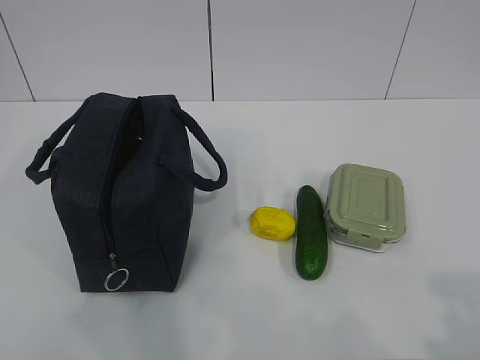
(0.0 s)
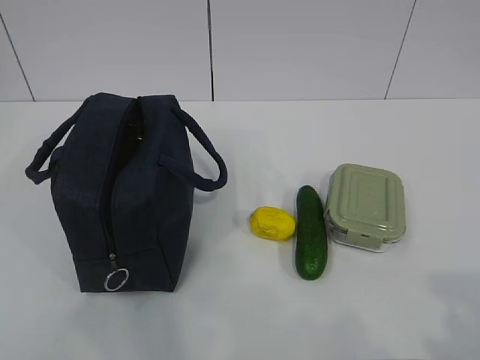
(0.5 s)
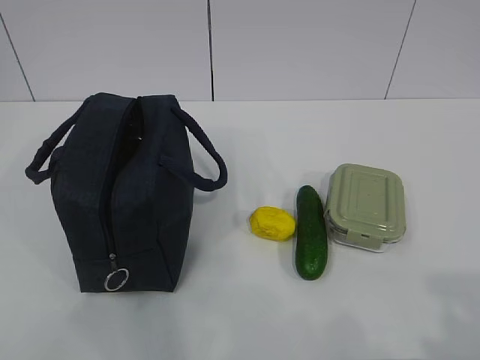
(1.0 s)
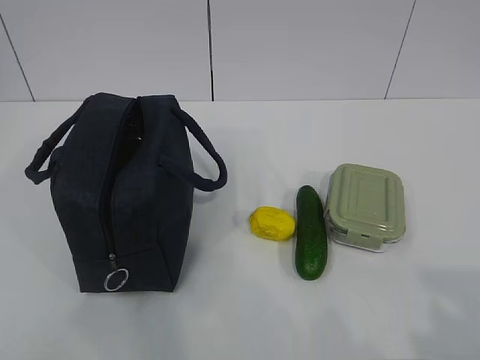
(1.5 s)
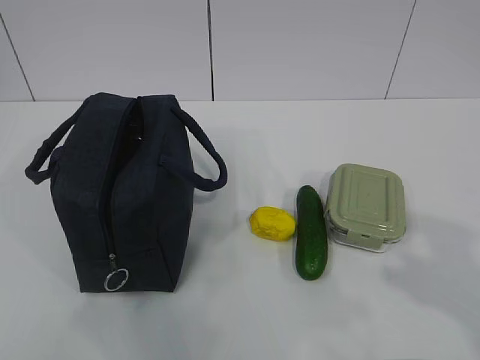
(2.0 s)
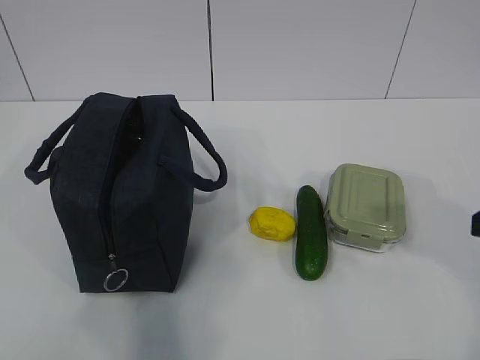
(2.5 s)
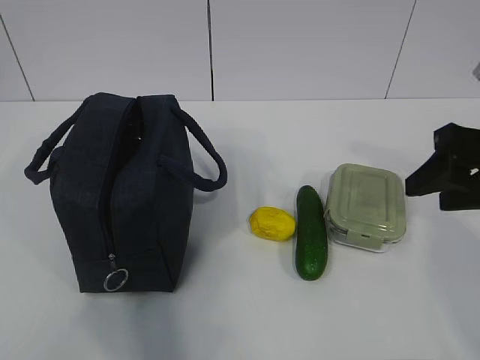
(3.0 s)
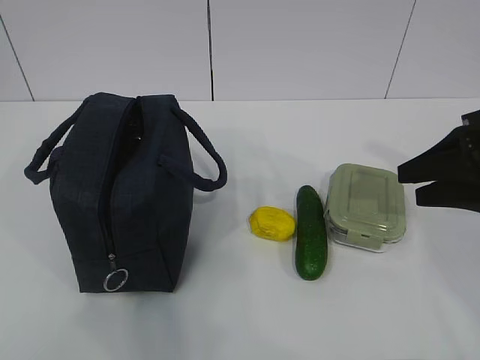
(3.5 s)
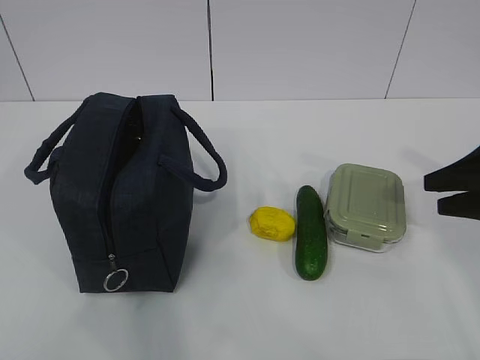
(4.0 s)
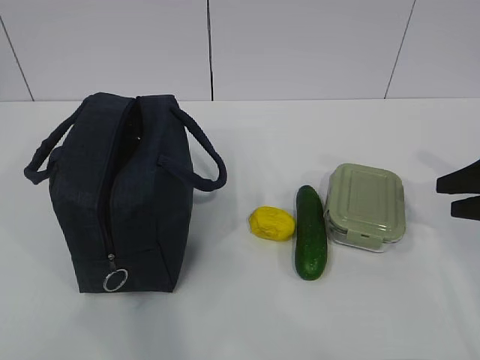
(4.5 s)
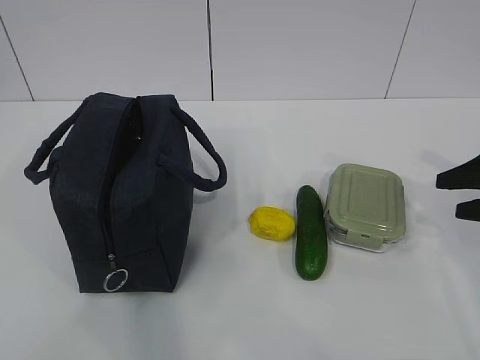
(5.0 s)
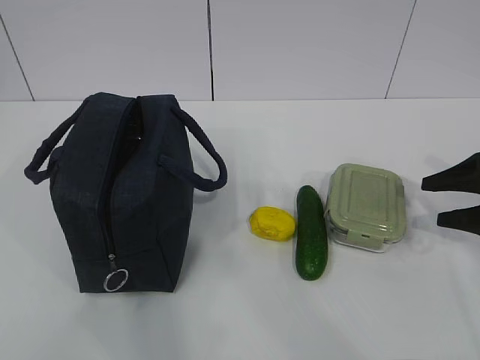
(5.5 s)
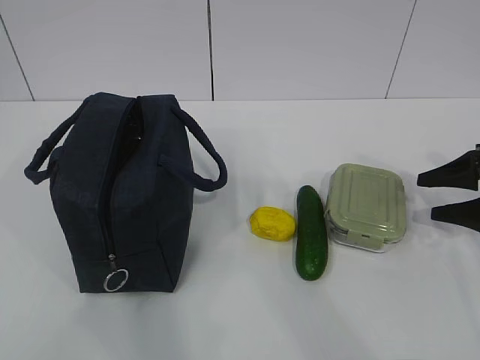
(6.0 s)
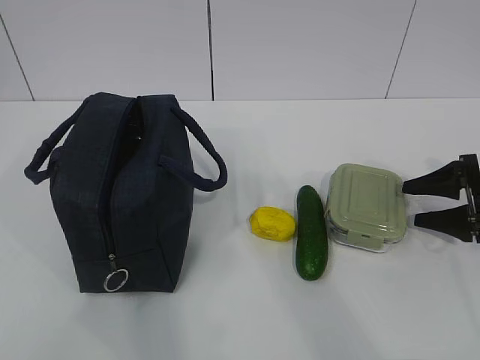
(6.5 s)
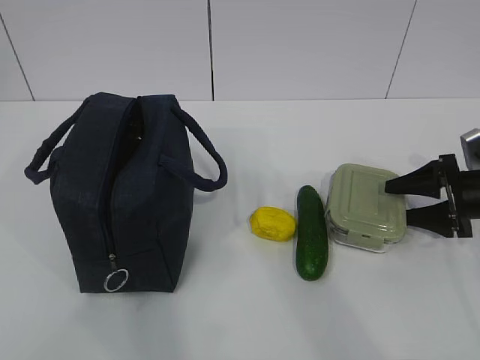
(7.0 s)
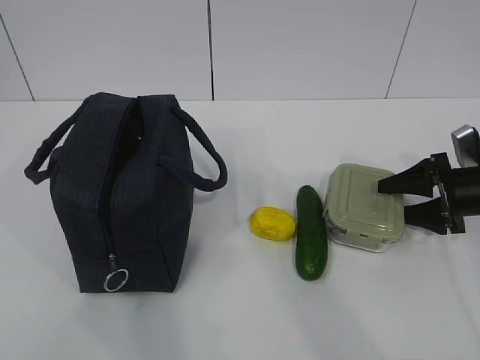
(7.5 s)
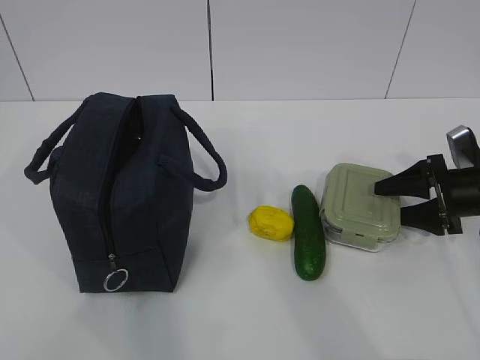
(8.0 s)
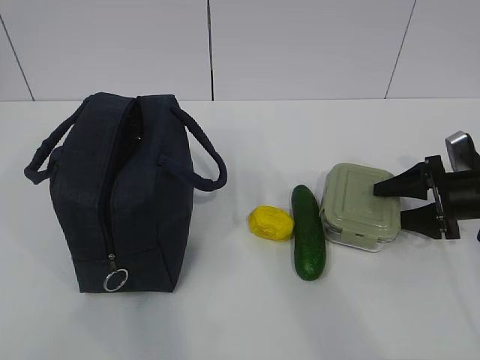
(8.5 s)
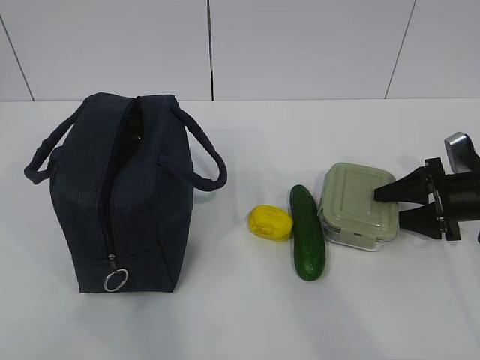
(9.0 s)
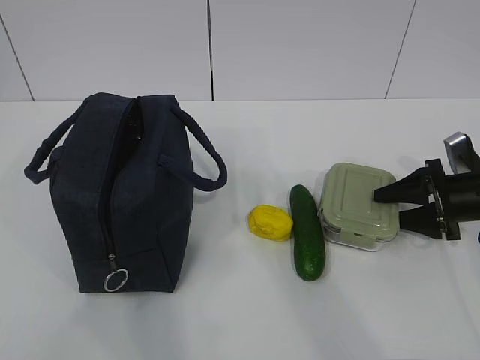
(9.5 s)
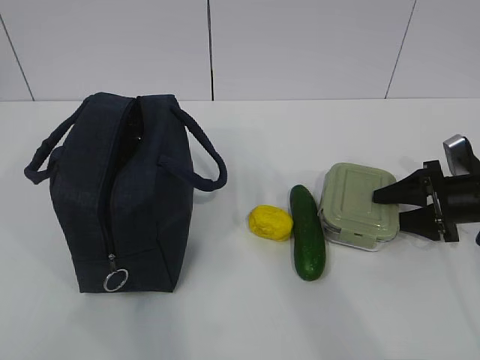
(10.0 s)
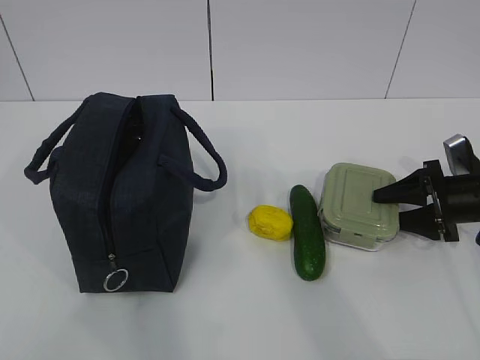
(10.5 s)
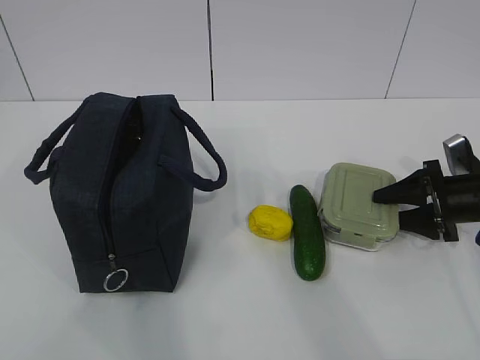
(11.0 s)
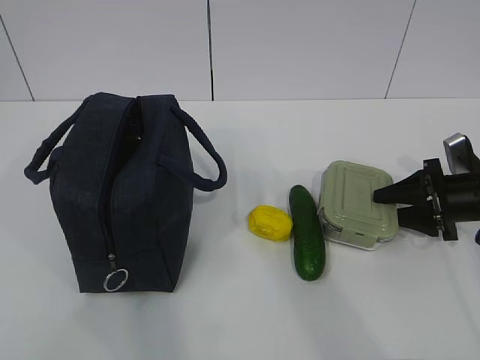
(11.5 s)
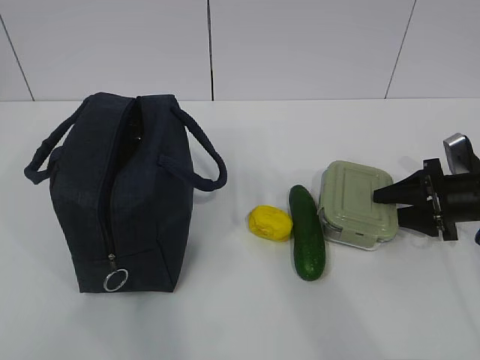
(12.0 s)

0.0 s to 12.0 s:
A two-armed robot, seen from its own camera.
Step, 0.0 to 11.5 s: Grab the lunch box with your right hand.
2.0 to 4.0 s: The right gripper shifts some 25 cm forward.
4.0 to 6.0 s: The right gripper goes about 5 cm downward.
6.0 to 8.0 s: The right gripper ends up approximately 5 cm from where it was.
8.0 to 12.0 s: Neither gripper changes place.

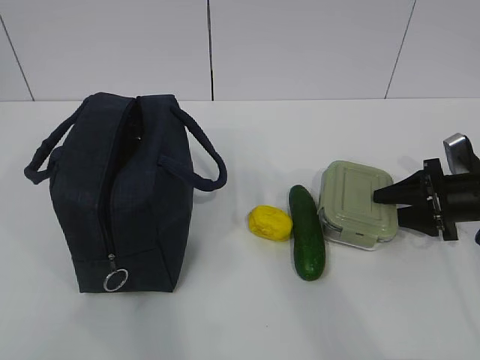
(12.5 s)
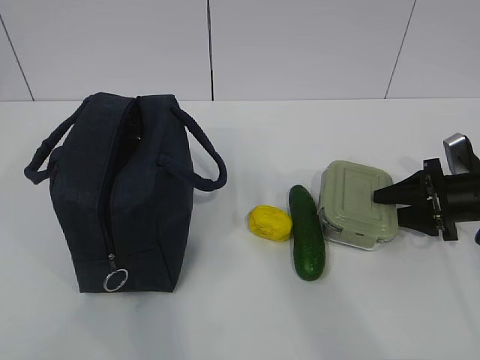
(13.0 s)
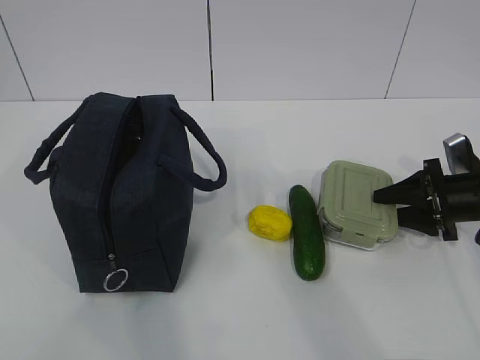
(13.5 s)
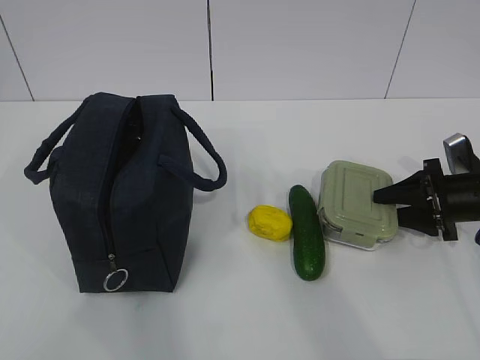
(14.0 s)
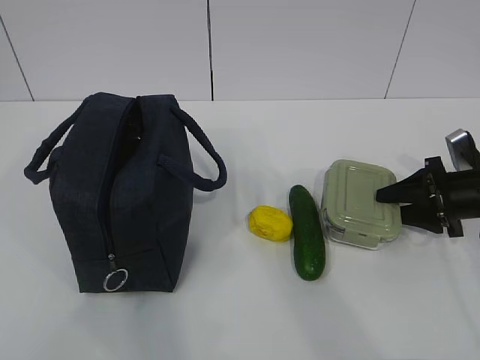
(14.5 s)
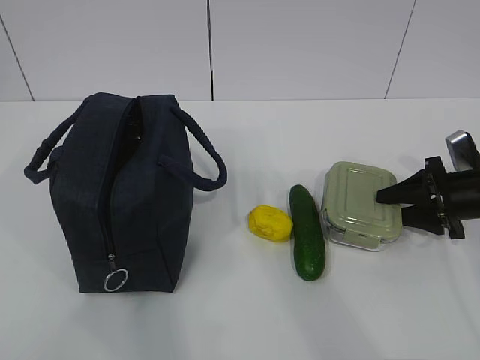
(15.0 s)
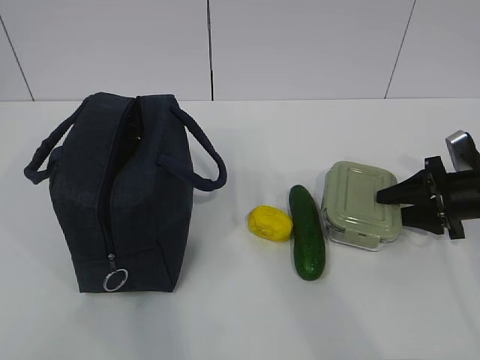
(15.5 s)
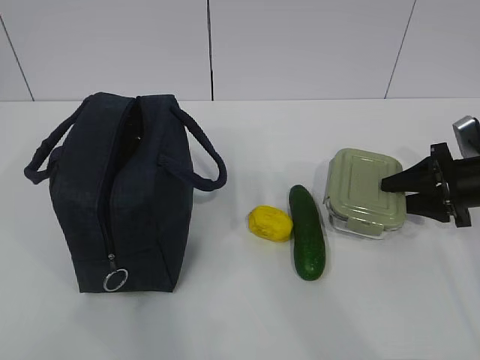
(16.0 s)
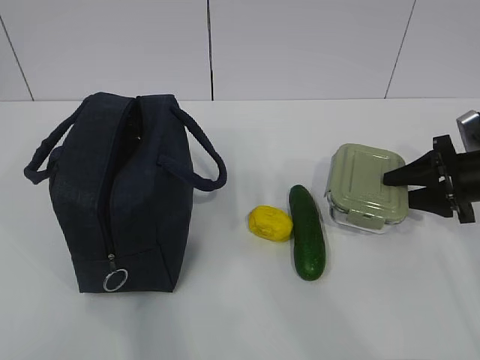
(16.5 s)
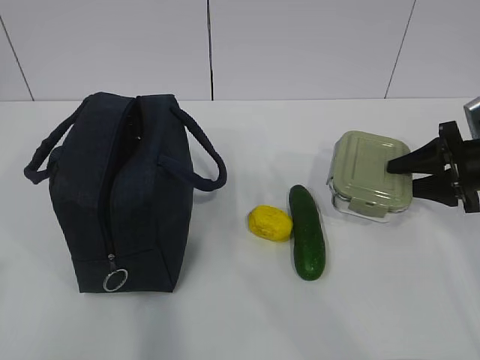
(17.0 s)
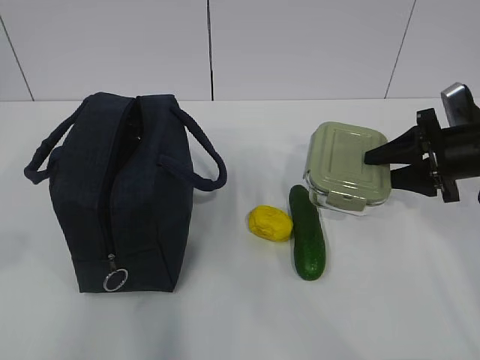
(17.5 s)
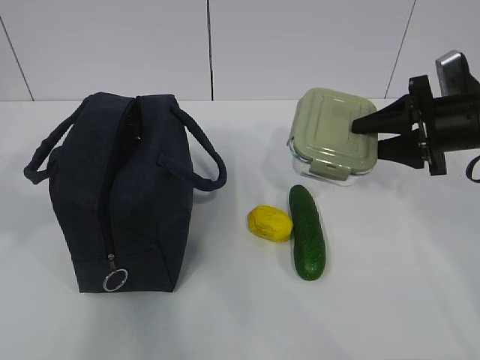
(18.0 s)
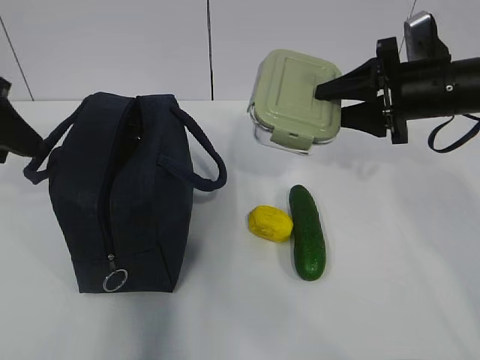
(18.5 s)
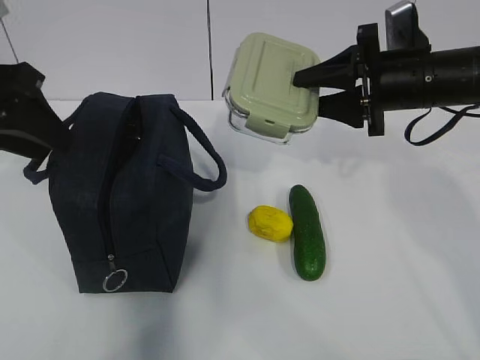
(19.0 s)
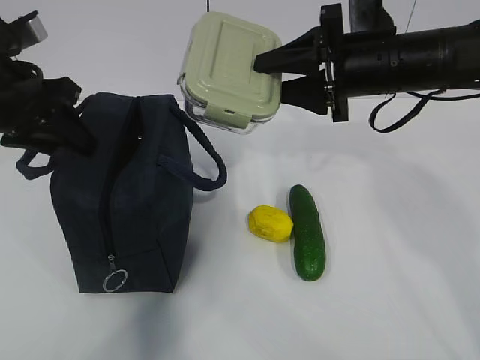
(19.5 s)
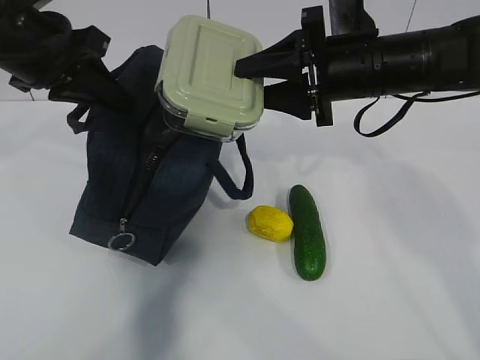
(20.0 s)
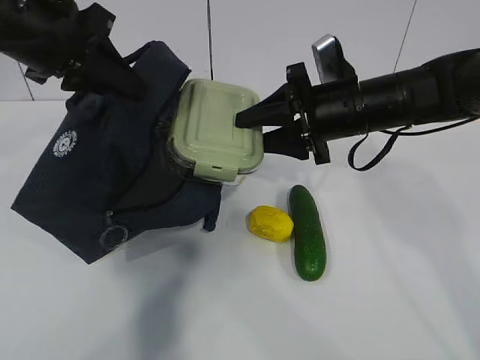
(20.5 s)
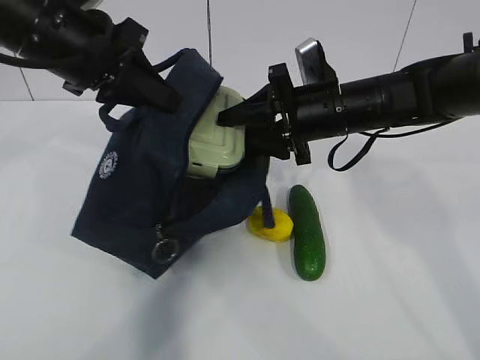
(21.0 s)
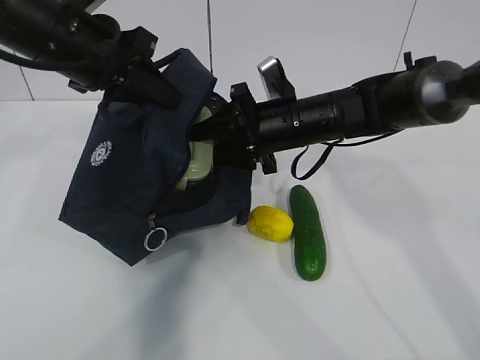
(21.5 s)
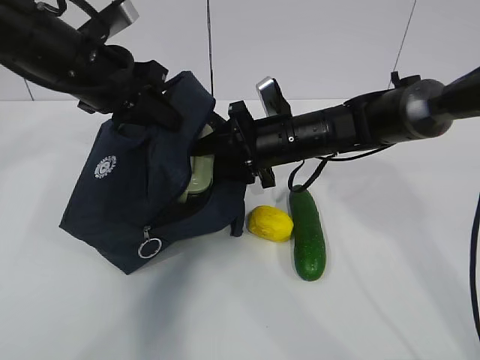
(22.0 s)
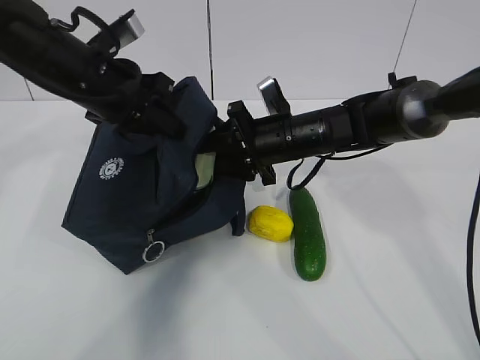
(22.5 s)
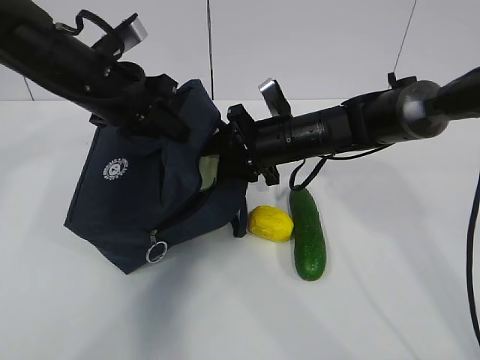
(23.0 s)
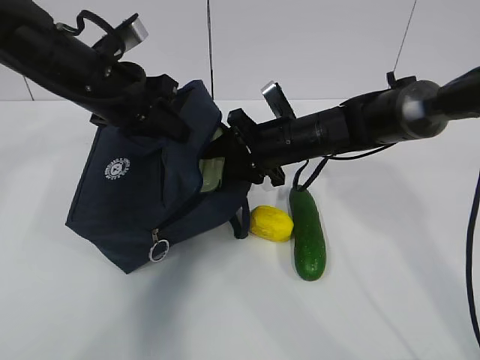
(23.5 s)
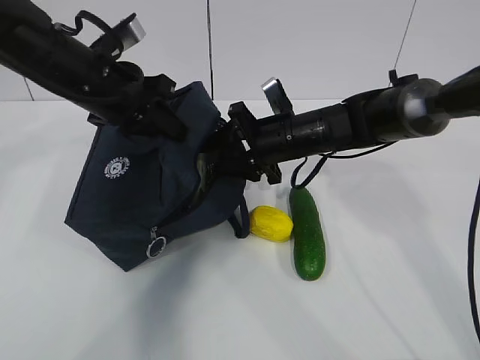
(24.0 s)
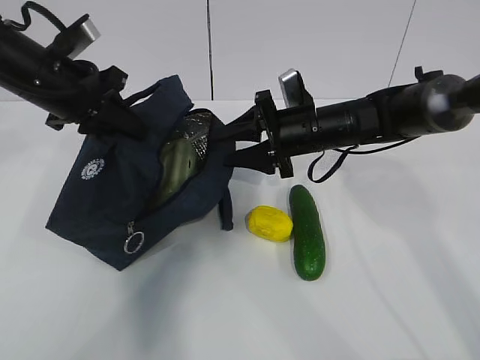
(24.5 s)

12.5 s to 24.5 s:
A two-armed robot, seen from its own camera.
Step, 12.5 to 16.5 s: Grab the lunch bag with your left hand.
Step, 17.0 to 19.5 s: Place it into the bag with your right hand.
Step, 20.0 to 23.5 s: Grab the cucumber with your right hand.
12.5 to 14.5 s: Both grippers stay put.
14.5 to 16.5 s: The grippers make only small movements.
16.5 to 18.5 s: The right gripper moves upward and to the left, approximately 15 cm. The left gripper moves forward, some 25 cm.
18.5 to 20.5 s: The left gripper goes approximately 10 cm forward and to the right, and closes its fingers, while the right gripper travels to the left by some 10 cm.
20.5 to 22.5 s: The right gripper moves downward and to the left, roughly 10 cm, while the left gripper moves downward, some 5 cm.
22.5 to 24.5 s: The left gripper heads to the left, covering about 5 cm.

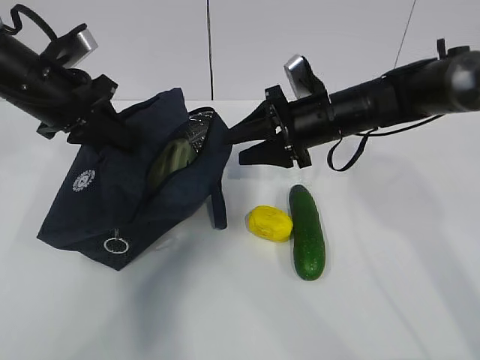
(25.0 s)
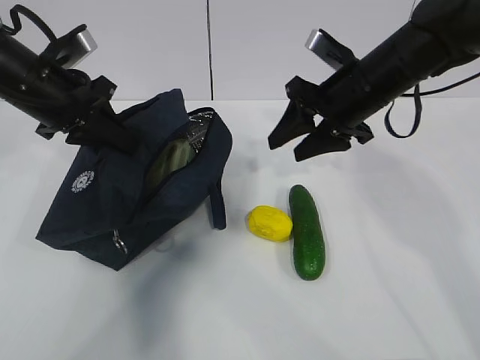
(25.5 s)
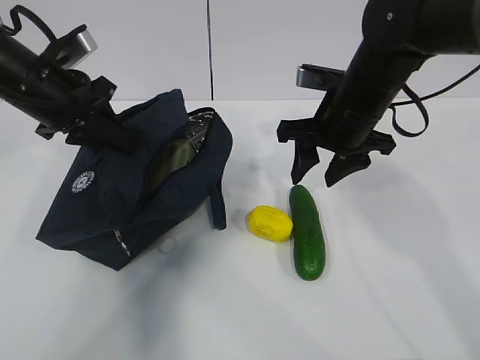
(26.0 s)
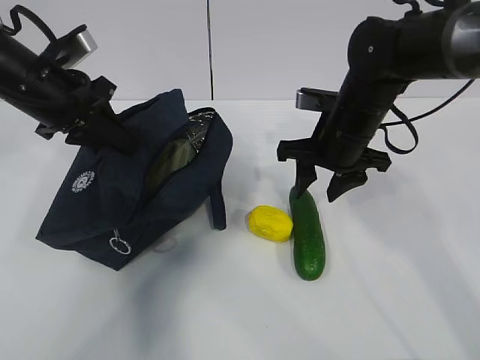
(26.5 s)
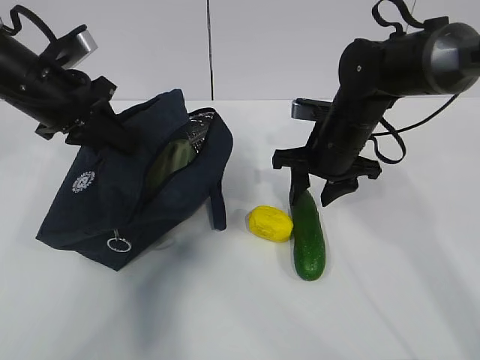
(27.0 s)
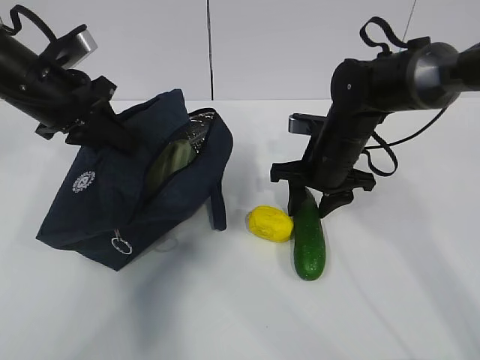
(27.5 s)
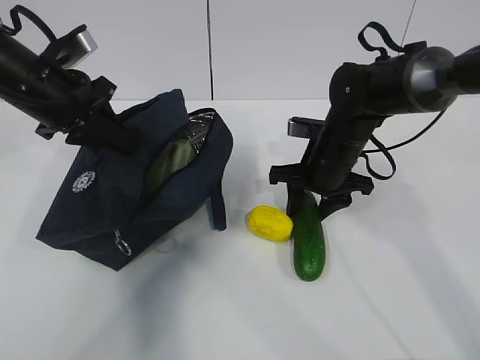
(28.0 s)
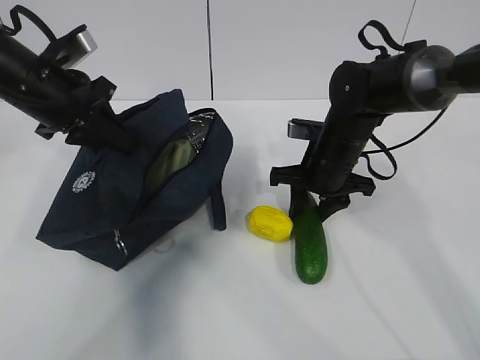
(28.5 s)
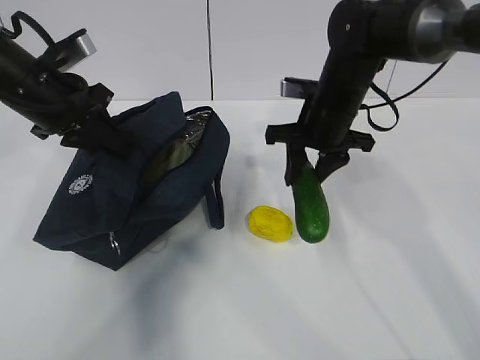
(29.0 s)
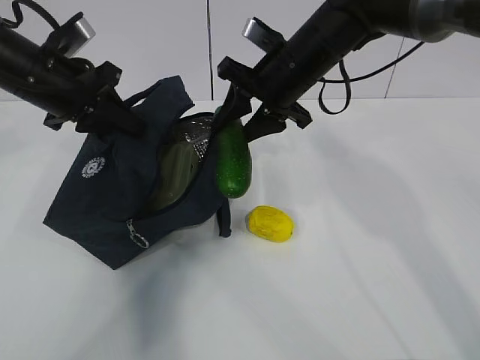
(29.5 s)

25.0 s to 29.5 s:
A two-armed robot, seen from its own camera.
27.0 to 29.5 s: The right gripper goes roughly 10 cm upward and to the left.
